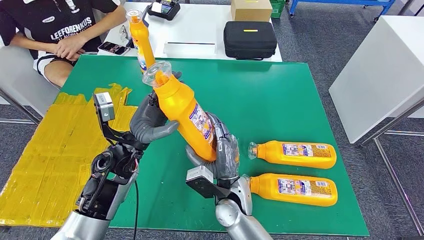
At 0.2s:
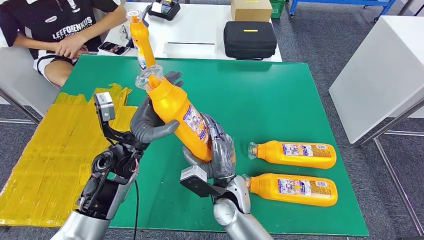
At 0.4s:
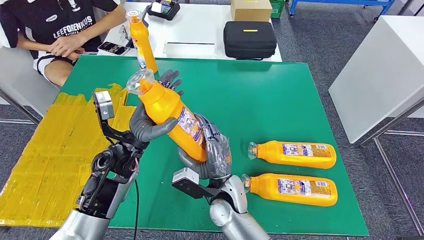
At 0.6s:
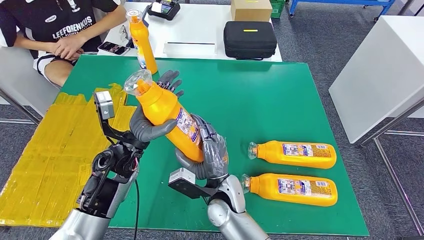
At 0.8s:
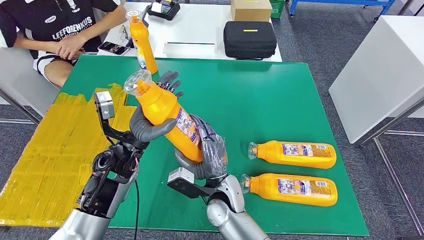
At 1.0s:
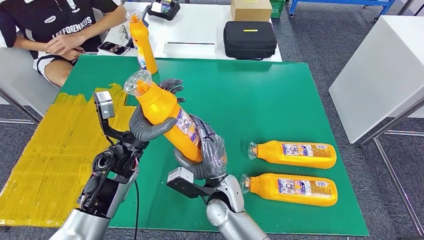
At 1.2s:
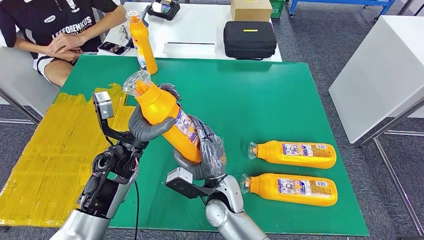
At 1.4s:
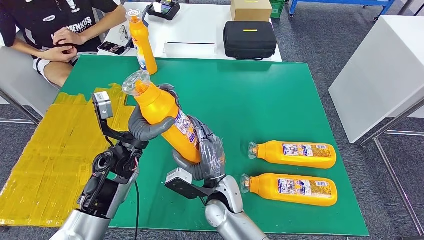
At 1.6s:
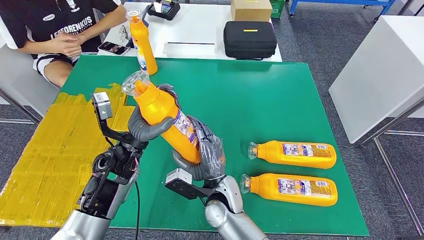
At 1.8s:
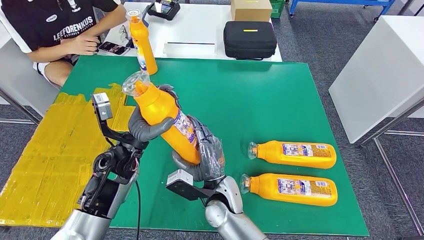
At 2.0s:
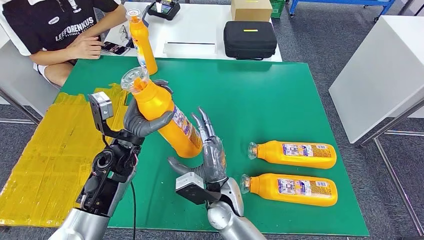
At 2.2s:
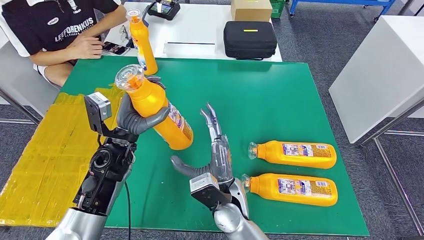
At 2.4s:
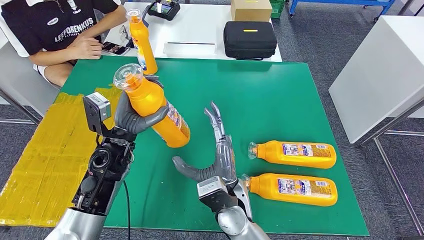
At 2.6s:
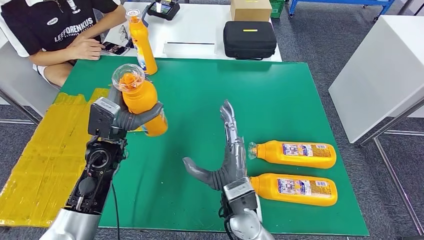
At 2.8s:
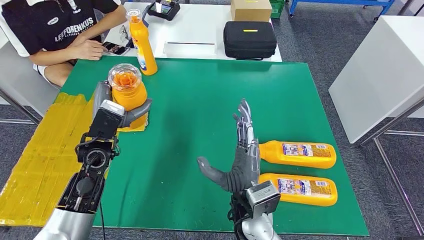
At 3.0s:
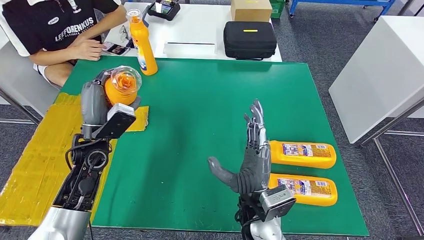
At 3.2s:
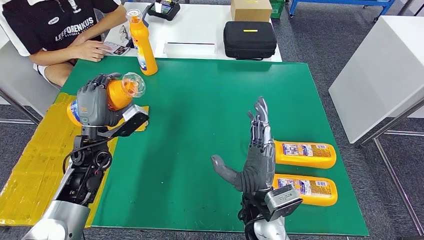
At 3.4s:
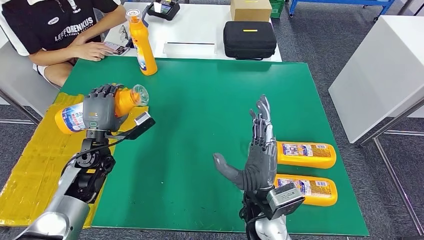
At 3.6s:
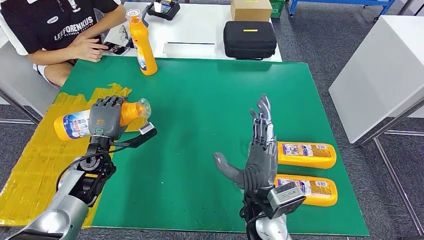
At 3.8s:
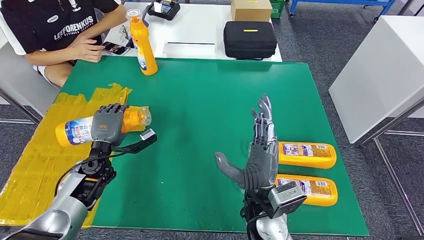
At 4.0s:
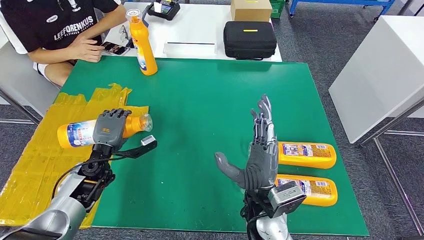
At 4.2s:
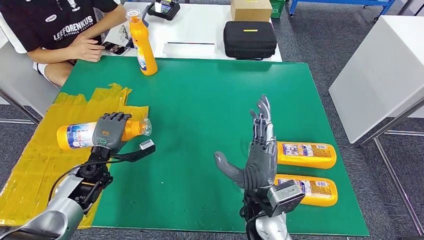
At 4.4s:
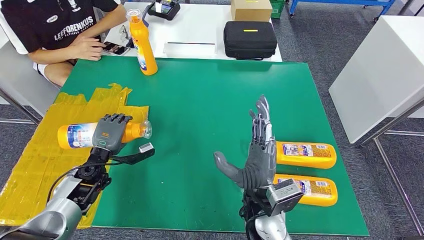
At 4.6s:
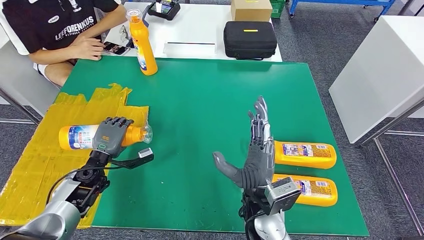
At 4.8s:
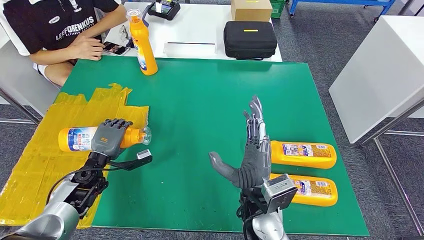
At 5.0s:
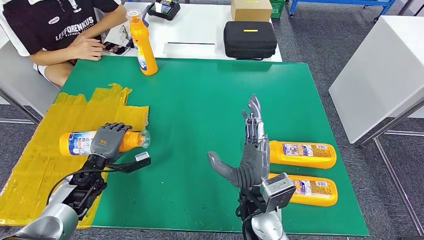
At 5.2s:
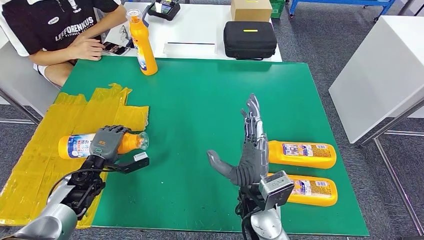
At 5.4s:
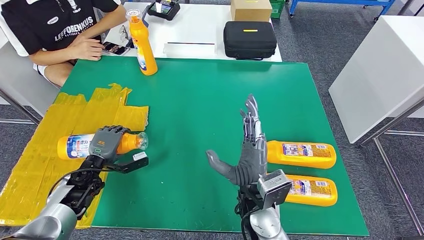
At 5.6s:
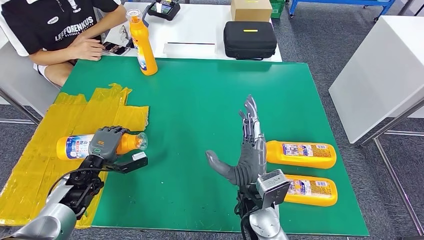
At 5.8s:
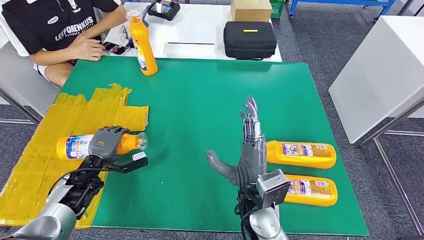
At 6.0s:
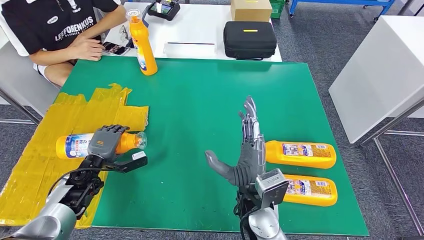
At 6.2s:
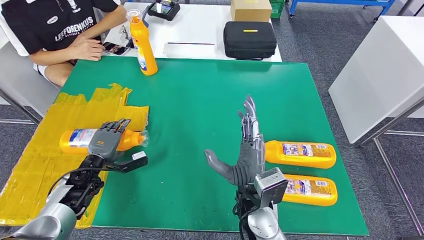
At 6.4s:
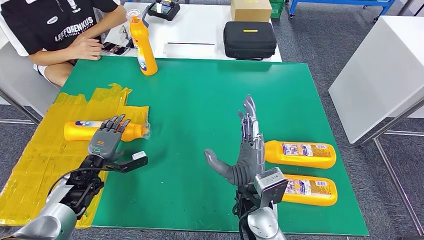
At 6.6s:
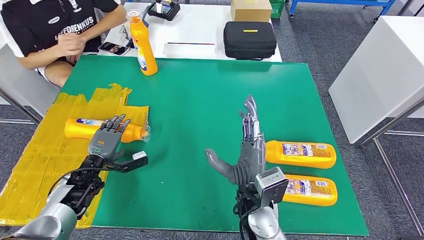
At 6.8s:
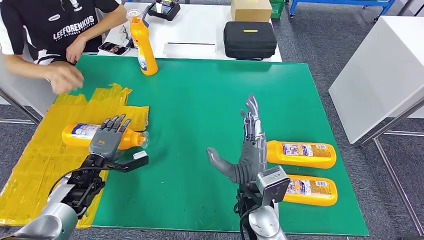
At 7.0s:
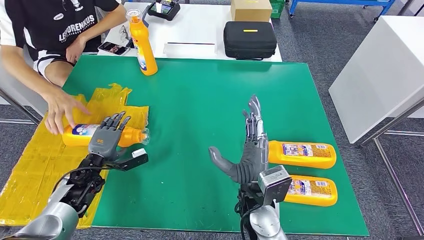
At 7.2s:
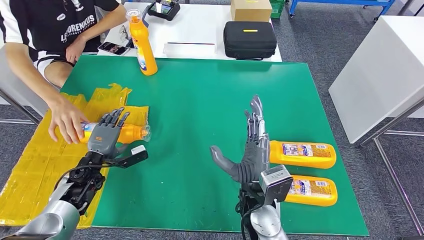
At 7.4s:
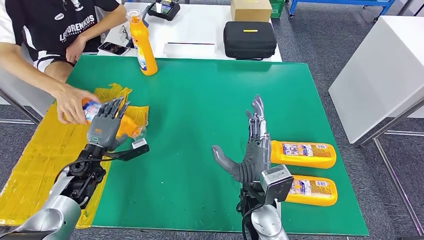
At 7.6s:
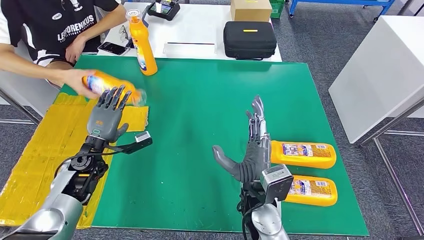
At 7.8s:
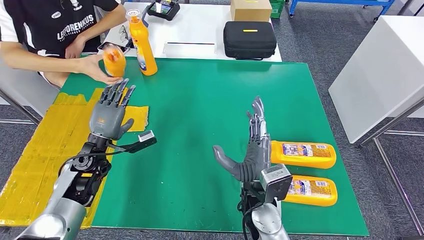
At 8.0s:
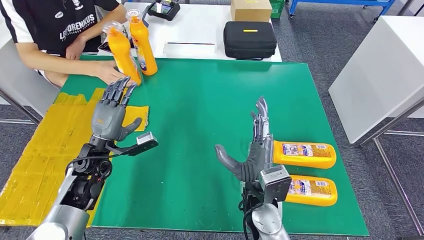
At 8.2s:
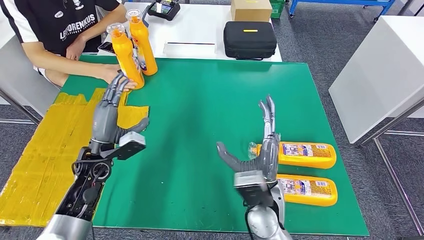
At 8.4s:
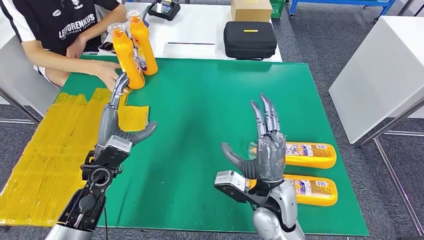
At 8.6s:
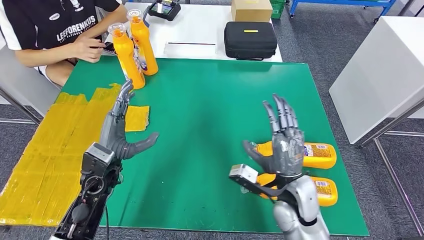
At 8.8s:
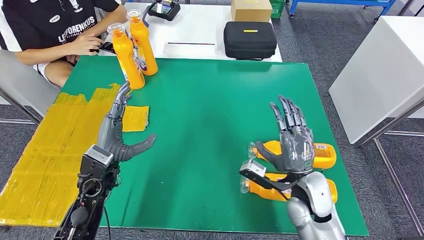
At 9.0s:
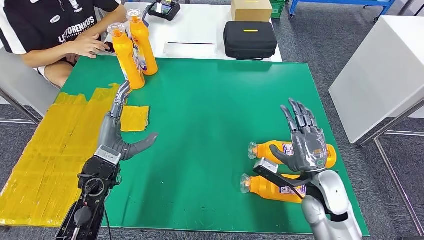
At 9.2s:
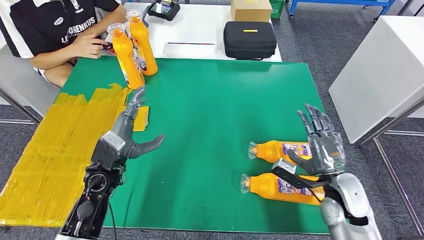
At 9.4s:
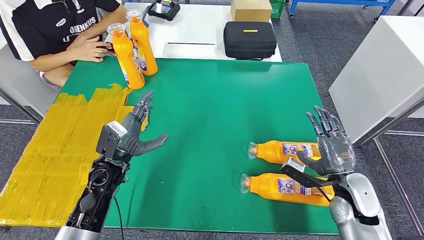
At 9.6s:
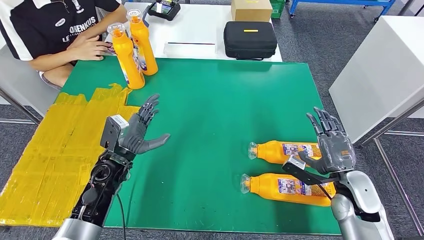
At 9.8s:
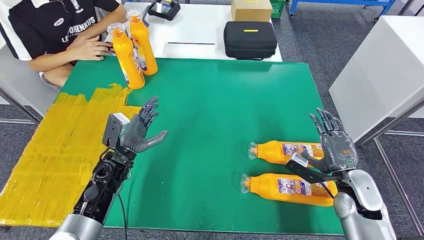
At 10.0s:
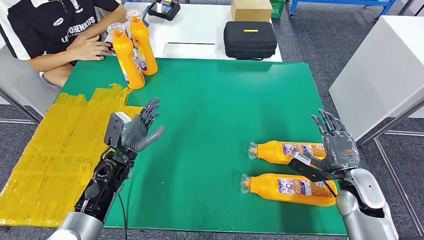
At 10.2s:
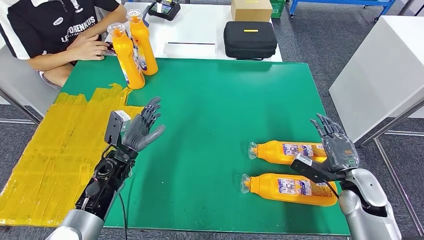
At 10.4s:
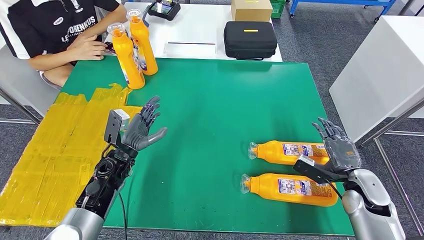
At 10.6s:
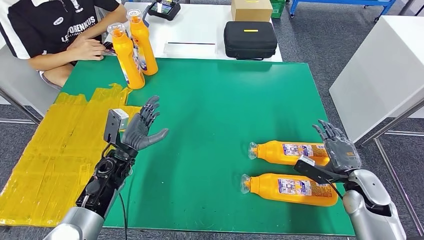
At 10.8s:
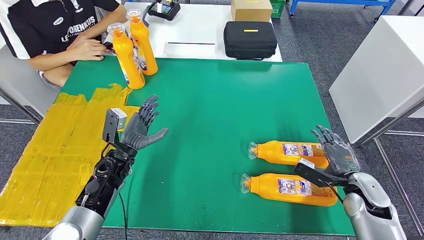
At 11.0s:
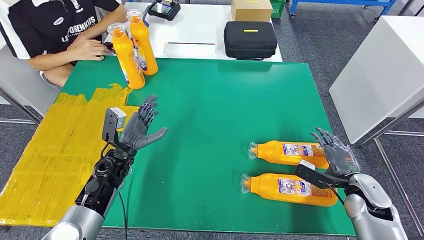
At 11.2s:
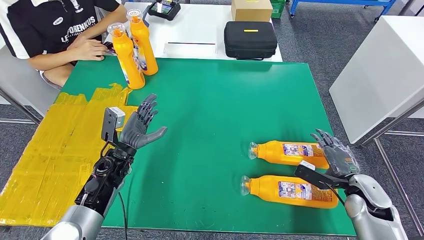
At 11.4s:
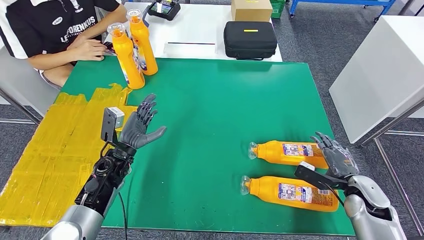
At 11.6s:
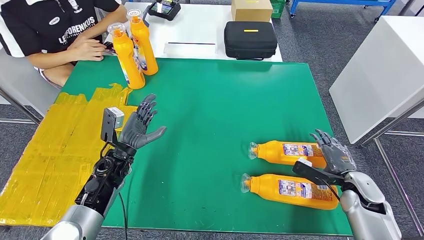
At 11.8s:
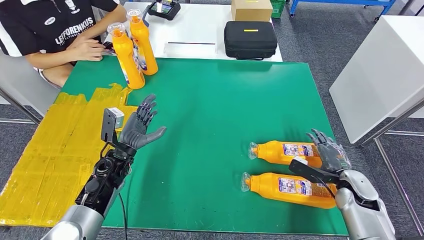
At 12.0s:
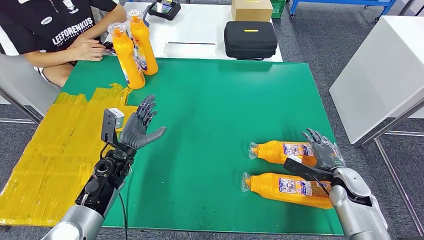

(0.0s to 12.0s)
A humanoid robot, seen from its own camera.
Step, 0.4s - 6.4s: Flip the bottle to face forward.
0.0s - 1.6s: The hands make only small movements.
3.0s - 4.4s: The left hand is displaced downward and to the left by approximately 15 cm.
4.4s - 6.0s: The hands stay close to where they were, moving slightly.
6.0s - 7.6s: The left hand heads upward, covering approximately 5 cm.
9.0s - 10.4s: The left hand changes place by about 5 cm; the right hand moves to the right, some 15 cm.
10.4s - 12.0s: There are only small adjustments of the hands.

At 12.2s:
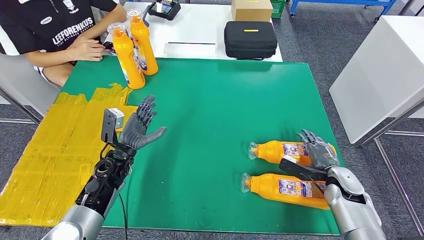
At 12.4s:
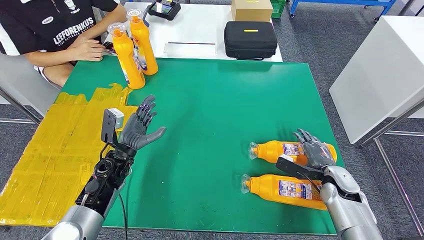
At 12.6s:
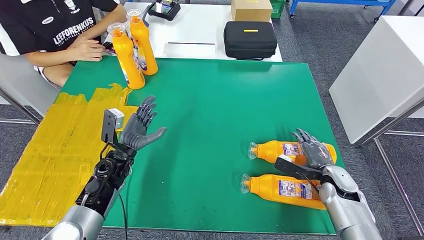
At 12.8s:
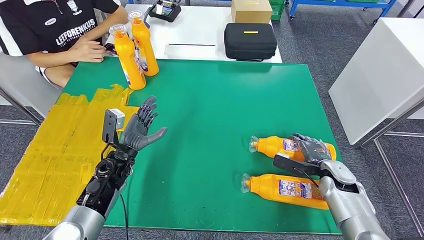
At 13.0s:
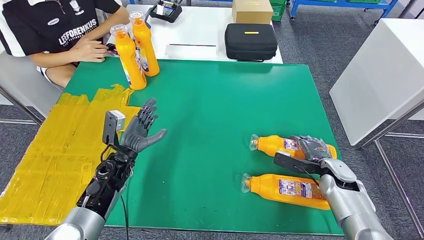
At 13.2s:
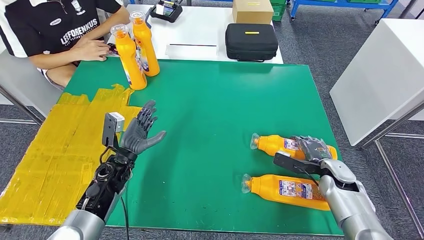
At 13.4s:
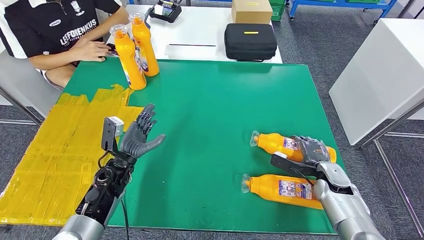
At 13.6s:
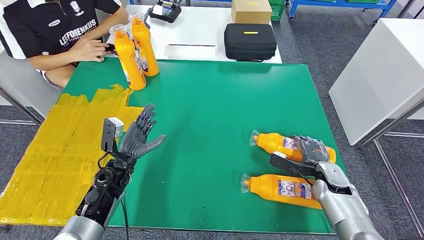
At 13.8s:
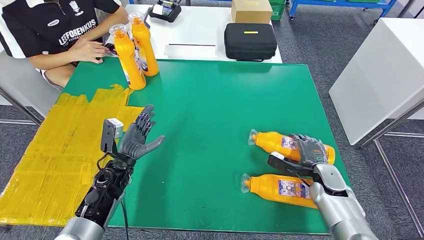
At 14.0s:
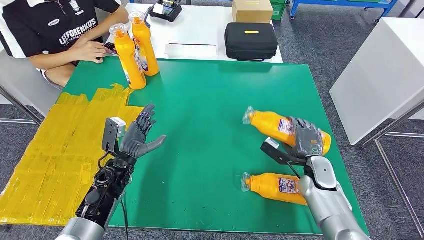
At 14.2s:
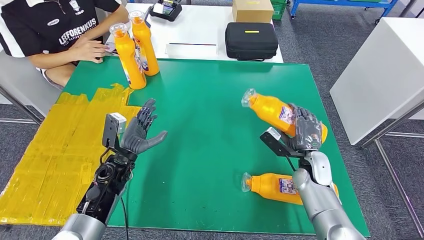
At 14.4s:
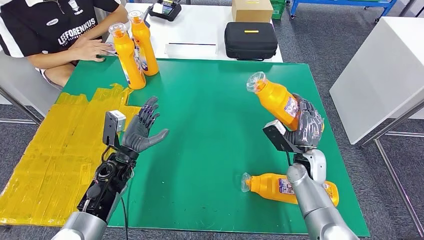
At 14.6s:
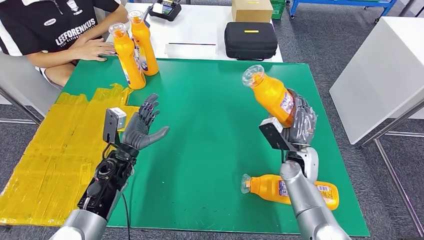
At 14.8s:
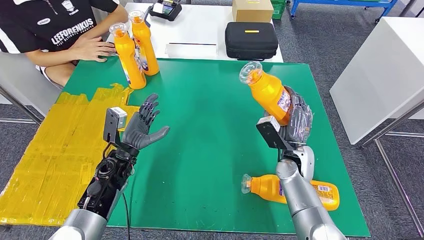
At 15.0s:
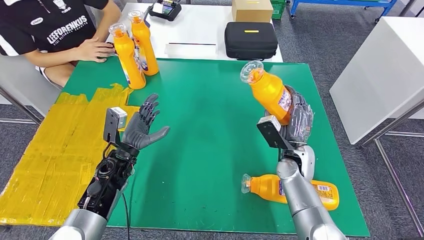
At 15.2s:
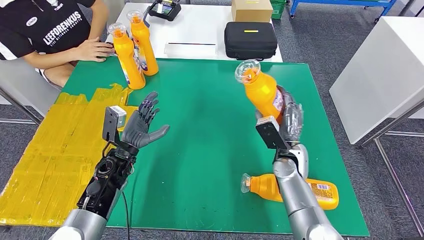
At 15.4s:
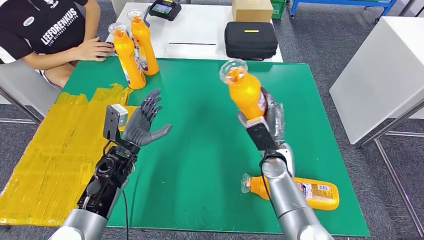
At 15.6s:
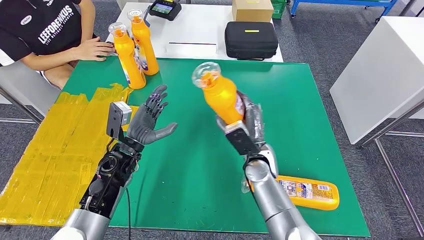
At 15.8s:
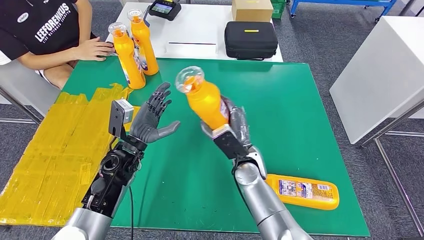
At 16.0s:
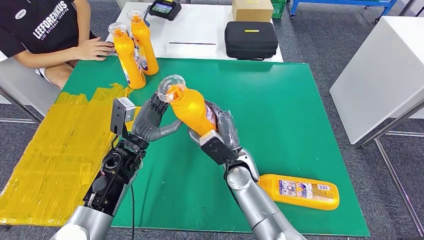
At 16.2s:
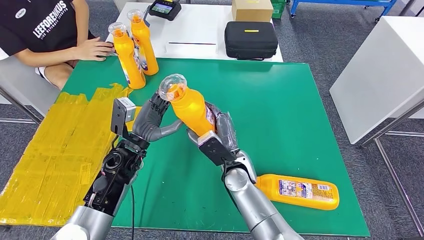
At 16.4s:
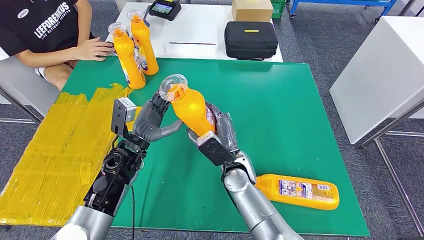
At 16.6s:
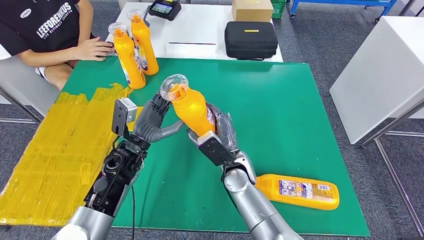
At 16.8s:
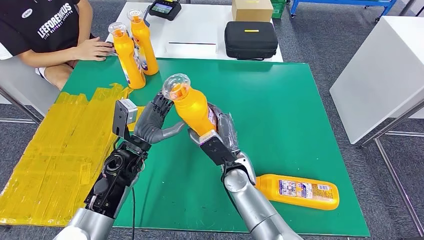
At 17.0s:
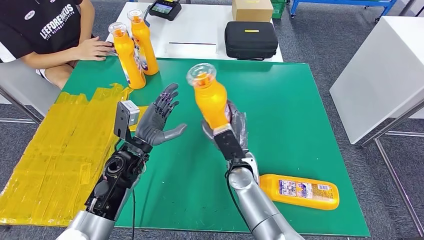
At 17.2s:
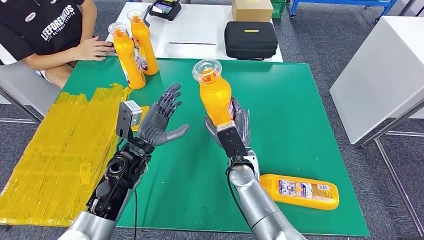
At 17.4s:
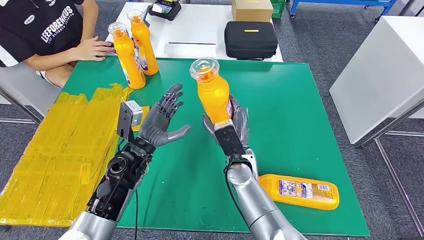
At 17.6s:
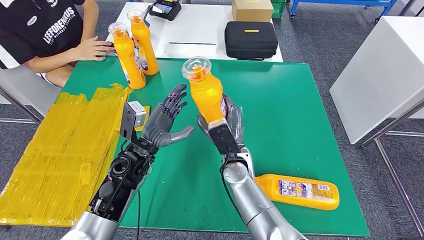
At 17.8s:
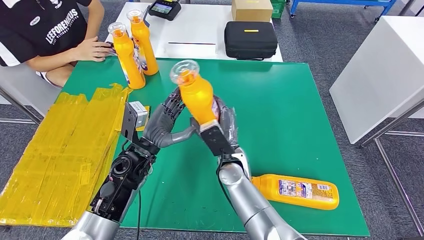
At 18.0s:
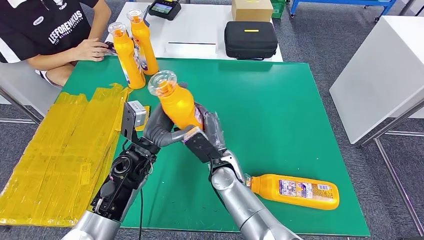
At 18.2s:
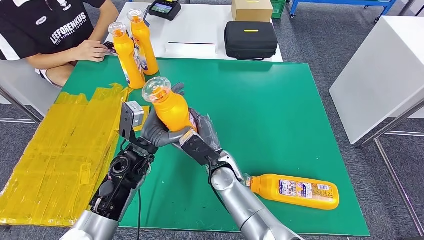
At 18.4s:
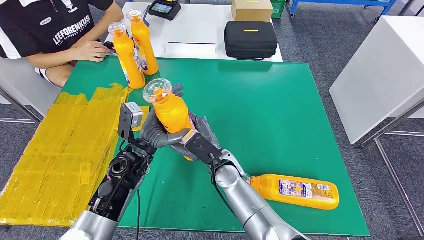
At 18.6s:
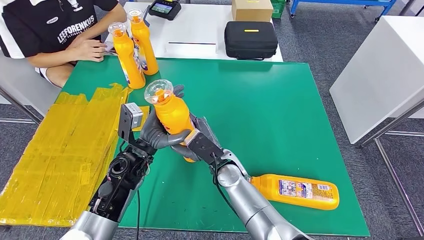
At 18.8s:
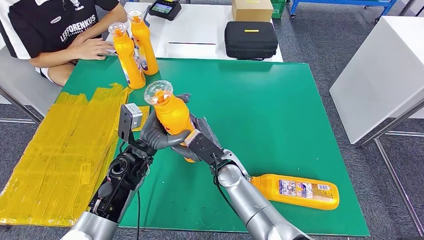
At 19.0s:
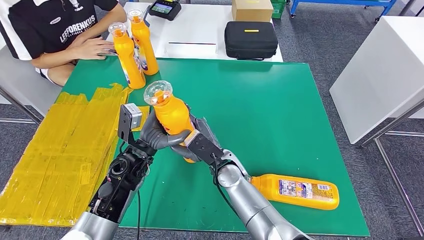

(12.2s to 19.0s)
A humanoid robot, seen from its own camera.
Step, 13.6s - 15.4s: Pick up the bottle from the table.
12.2s - 13.6s: The hands stay close to where they were, moving slightly.
16.2s - 17.6s: There are only small adjustments of the hands.
